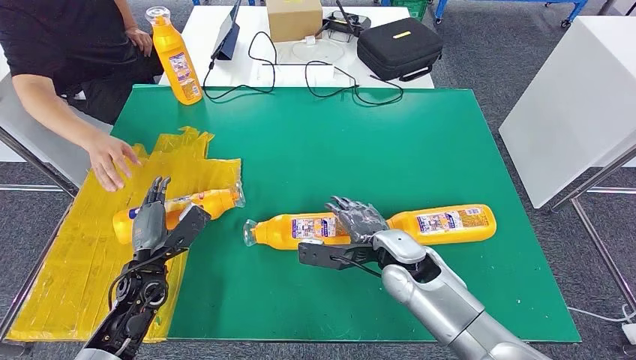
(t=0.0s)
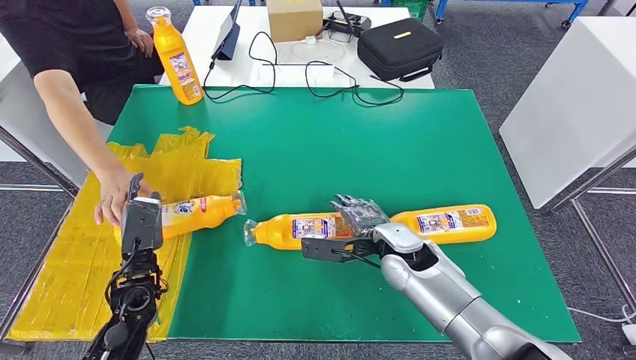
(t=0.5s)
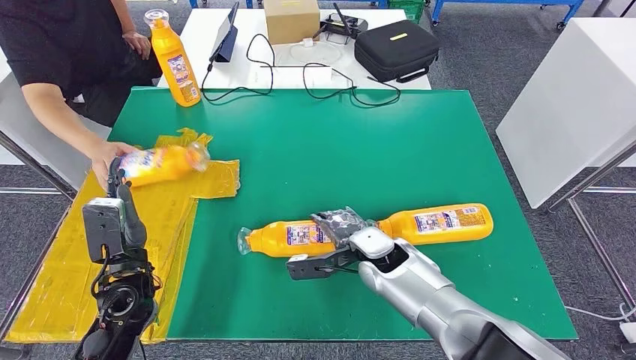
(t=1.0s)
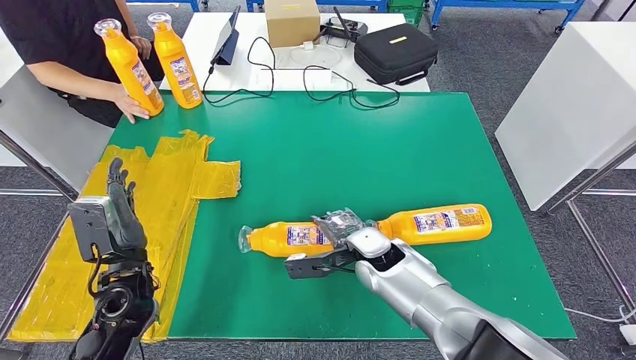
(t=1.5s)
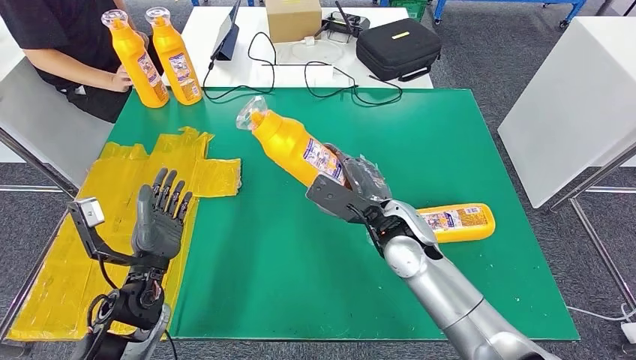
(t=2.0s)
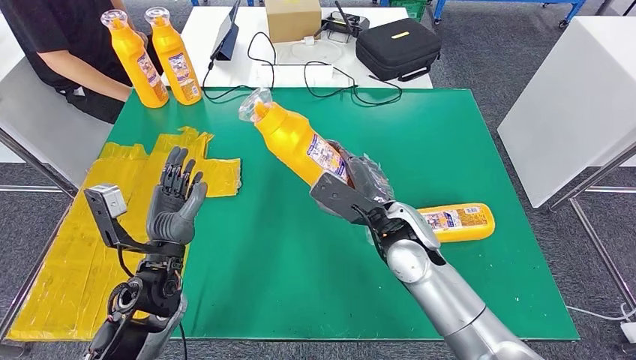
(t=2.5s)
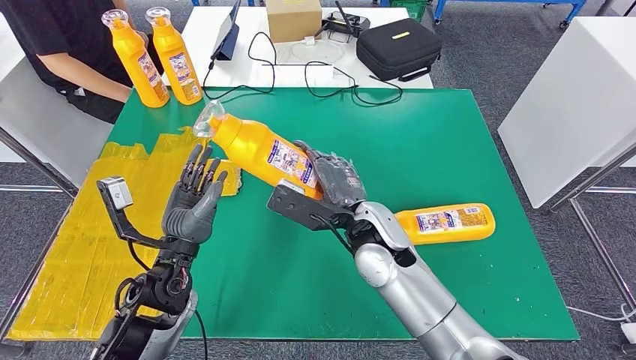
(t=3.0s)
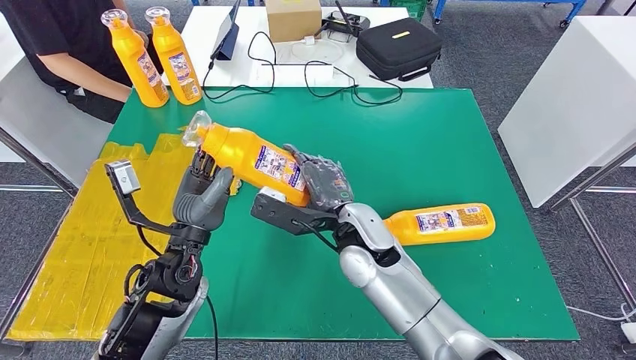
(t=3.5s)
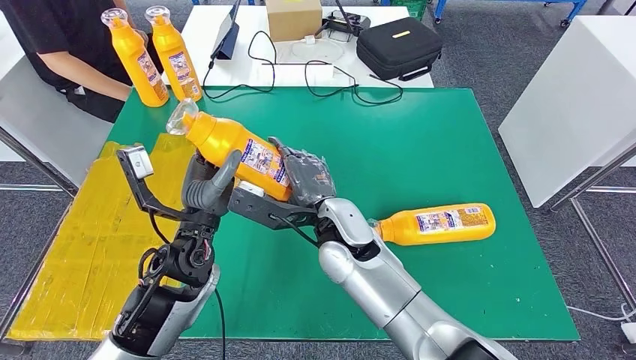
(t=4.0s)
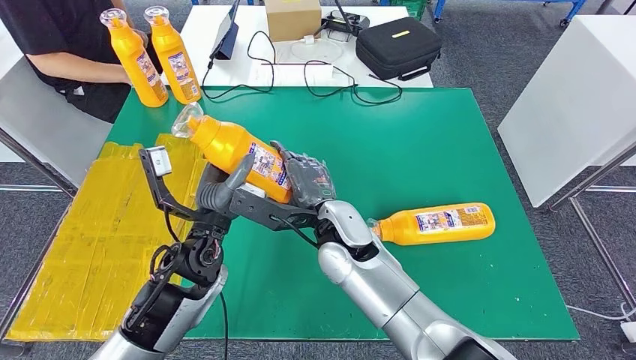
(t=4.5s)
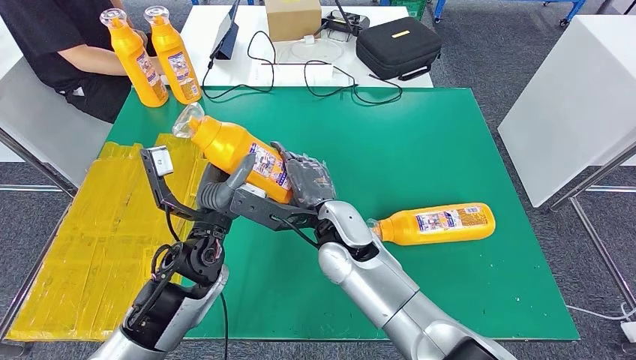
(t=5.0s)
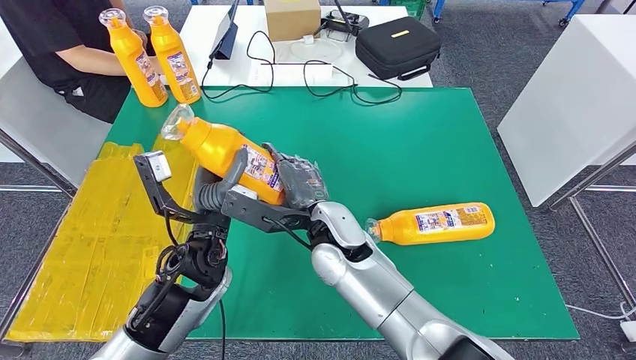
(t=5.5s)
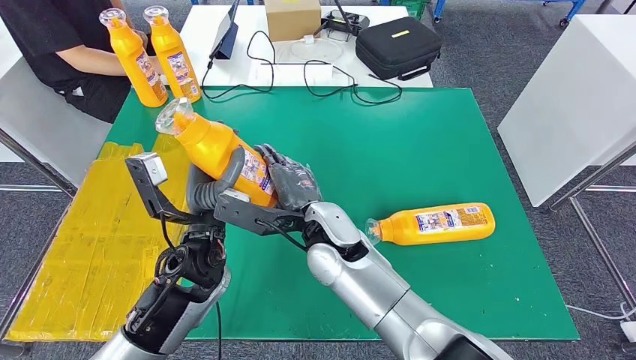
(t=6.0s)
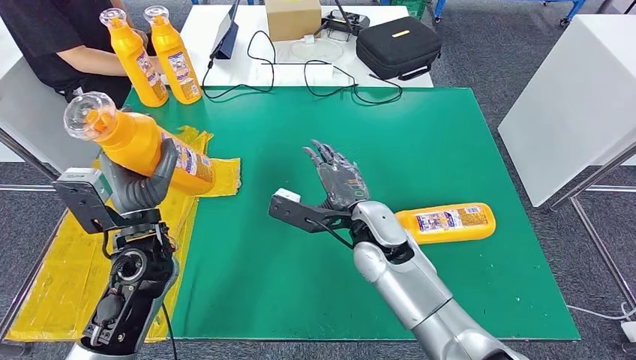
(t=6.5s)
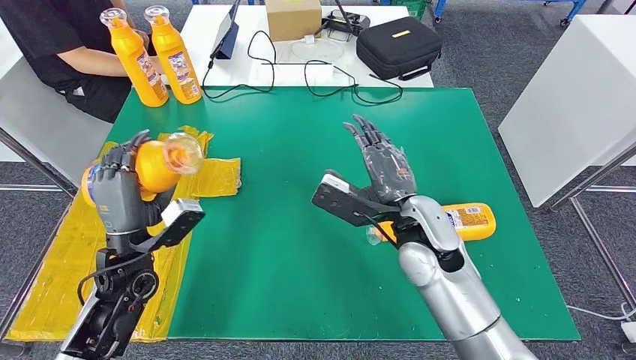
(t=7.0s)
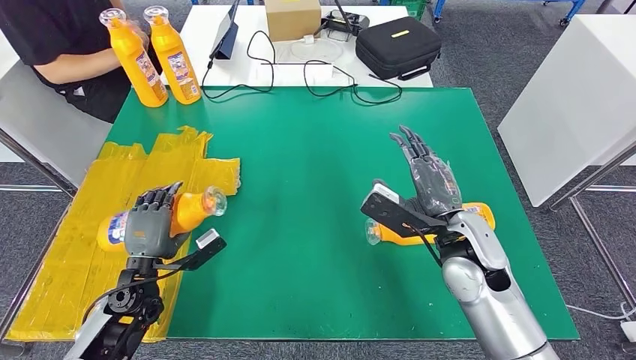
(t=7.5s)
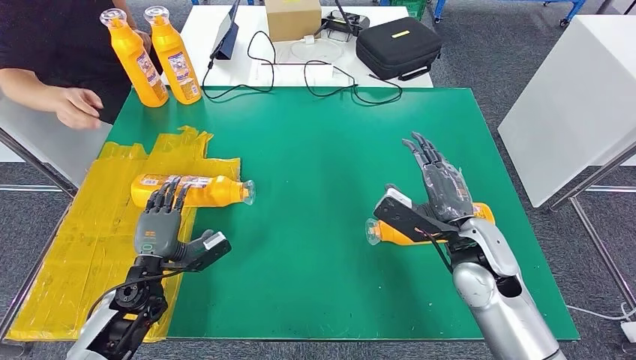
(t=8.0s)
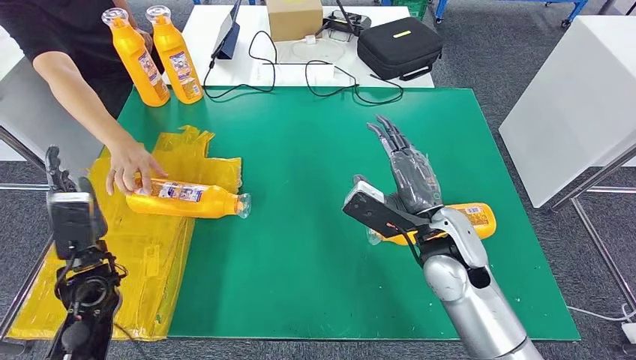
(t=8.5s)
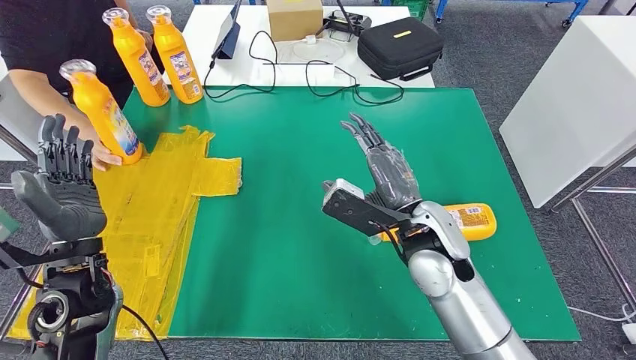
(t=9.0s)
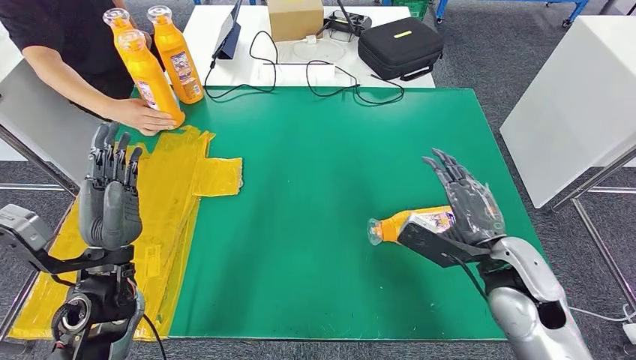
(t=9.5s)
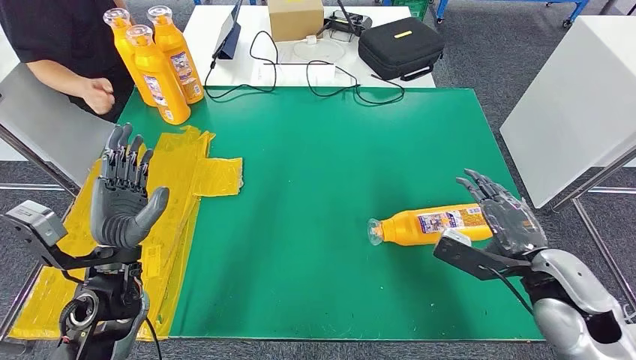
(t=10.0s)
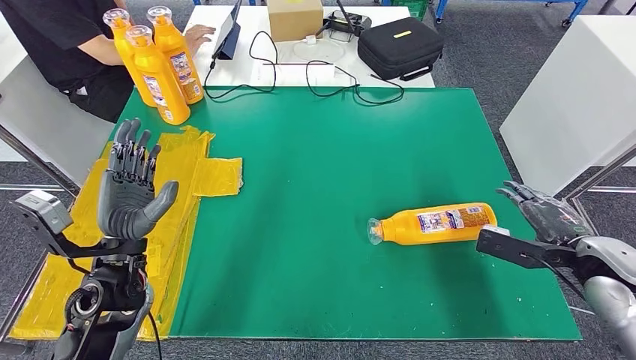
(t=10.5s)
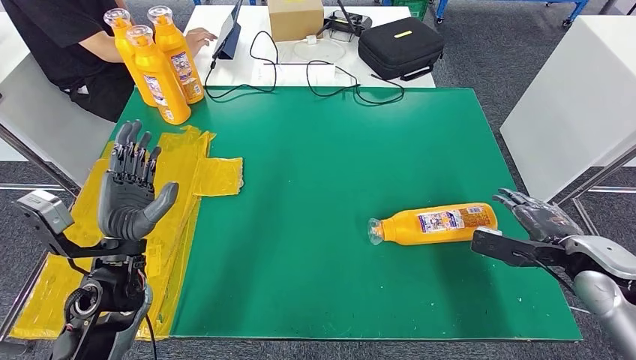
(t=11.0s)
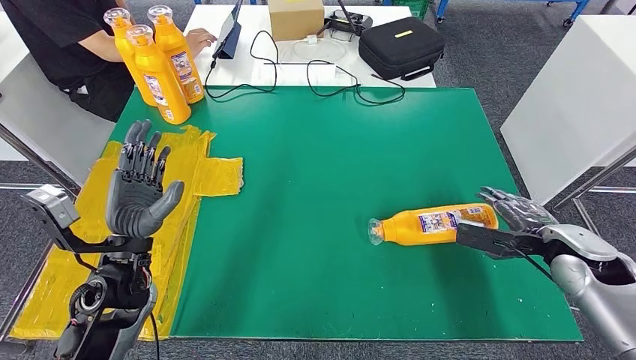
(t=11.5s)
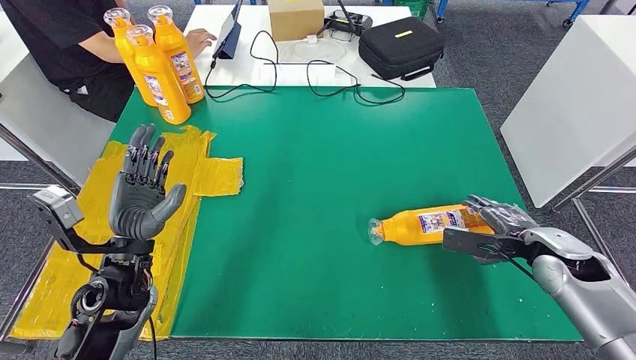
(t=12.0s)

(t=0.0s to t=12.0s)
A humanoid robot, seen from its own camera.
Step, t=0.0s - t=3.5s: Pick up the fast-moving consumer goods bottle from the table.
Step, t=5.0s - t=7.5s: Flip the fast-moving consumer goods bottle to the front side.
t=4.0s - t=6.0s: There are only small adjustments of the hands.
t=10.0s - t=12.0s: The right hand travels forward, to the right and downward by roughly 10 cm.

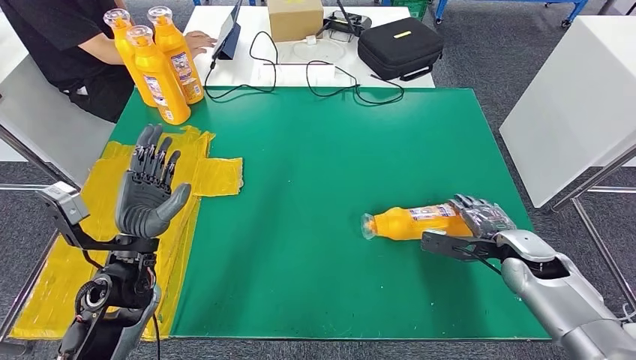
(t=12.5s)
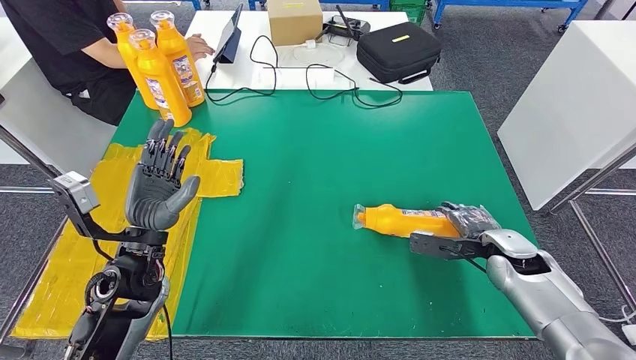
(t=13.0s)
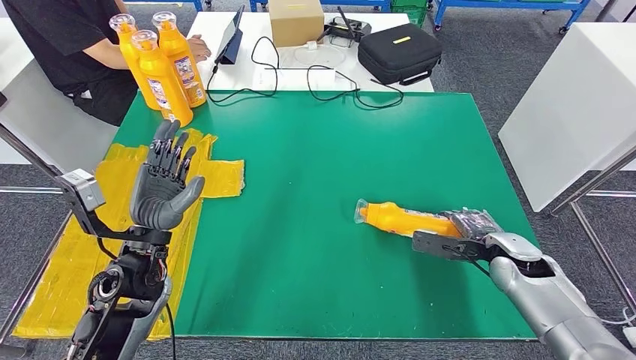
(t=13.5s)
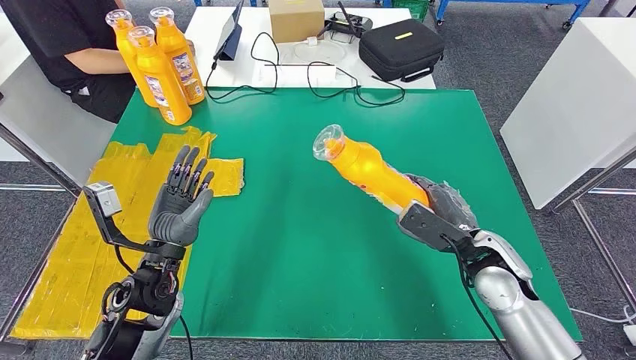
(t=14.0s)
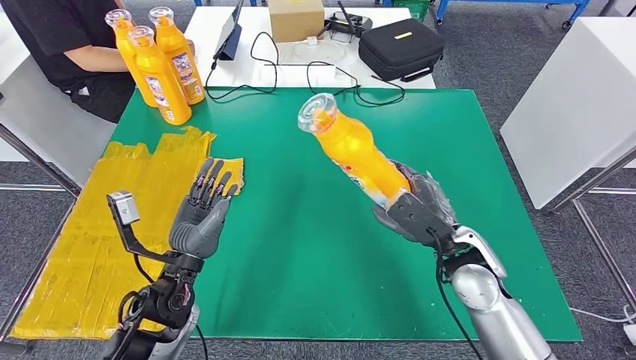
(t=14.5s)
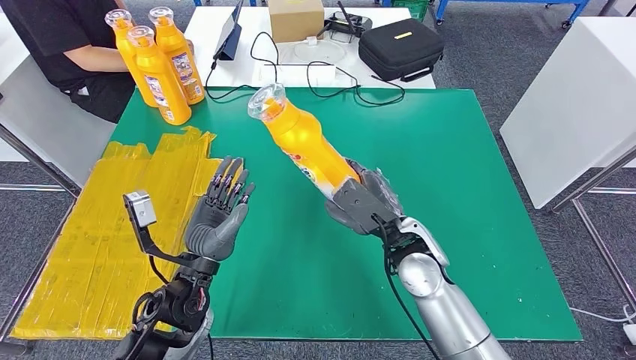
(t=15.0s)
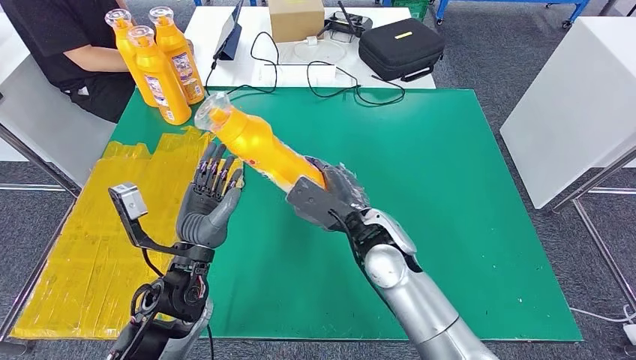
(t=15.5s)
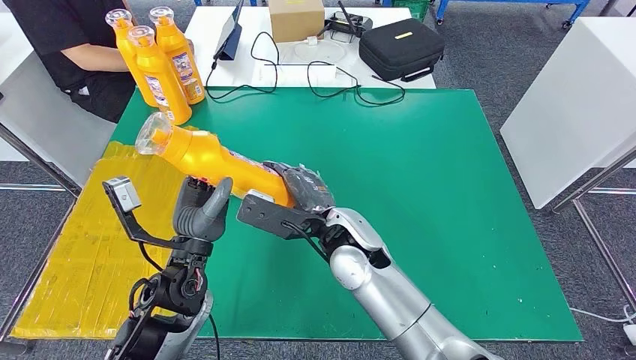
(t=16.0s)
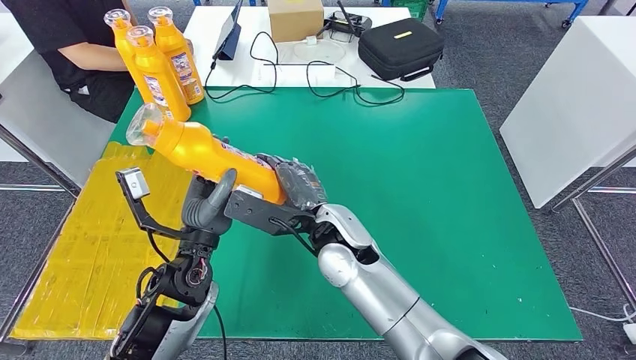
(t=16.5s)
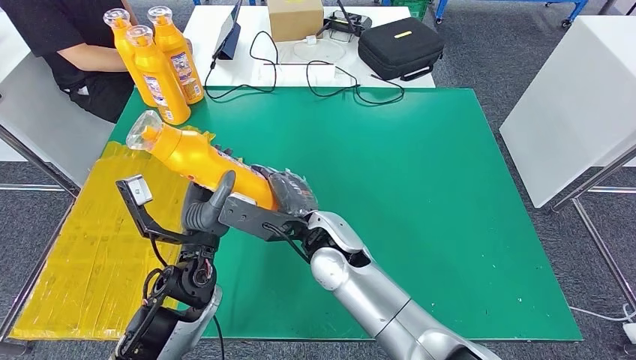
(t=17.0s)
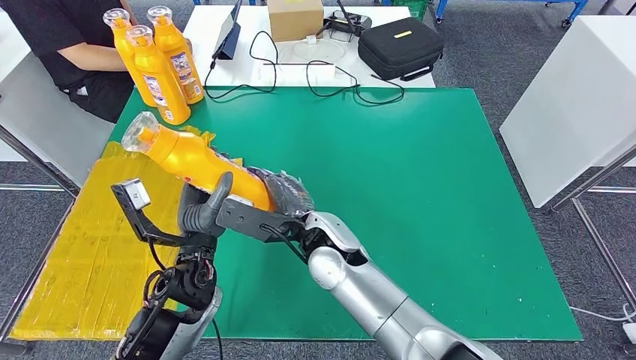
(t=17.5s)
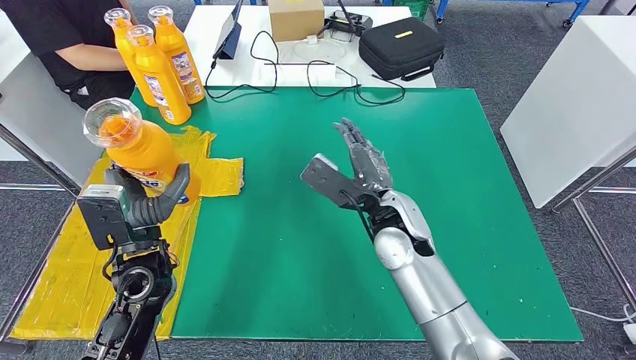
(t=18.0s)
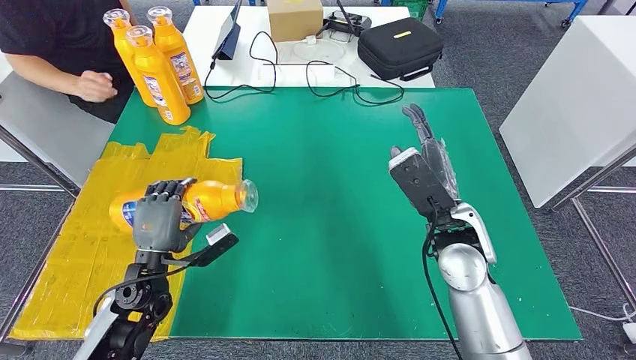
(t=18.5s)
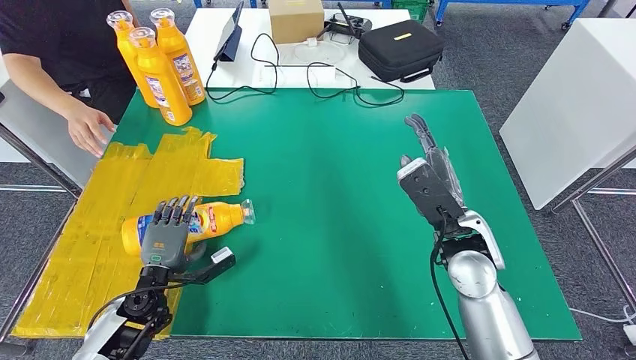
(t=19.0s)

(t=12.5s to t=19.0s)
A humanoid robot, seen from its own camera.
Step, t=12.5s - t=15.5s: Pick up the fast-moving consumer goods bottle from the table.
Step, t=16.0s - t=19.0s: Flip the fast-moving consumer goods bottle to the front side.
